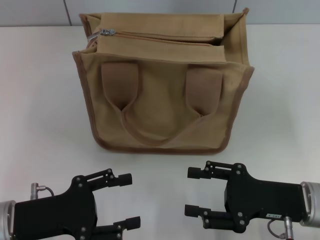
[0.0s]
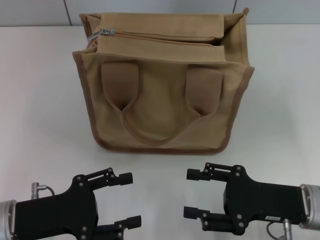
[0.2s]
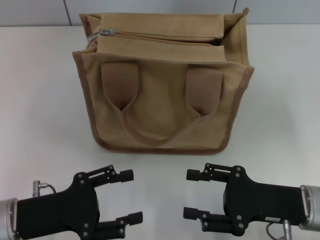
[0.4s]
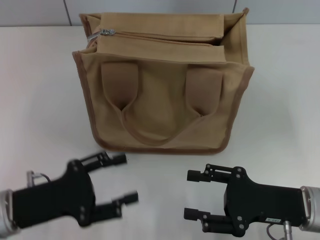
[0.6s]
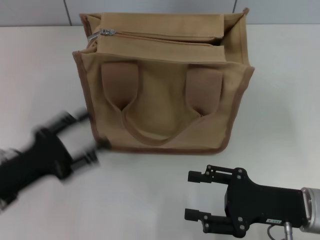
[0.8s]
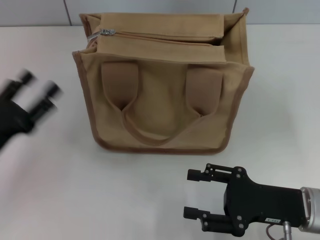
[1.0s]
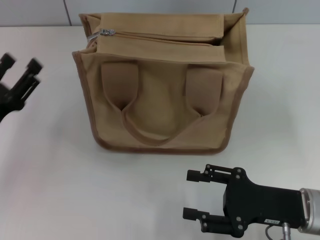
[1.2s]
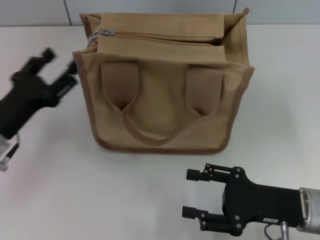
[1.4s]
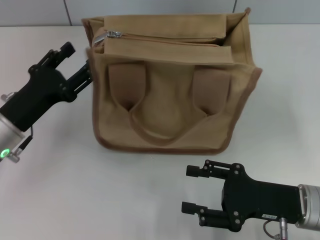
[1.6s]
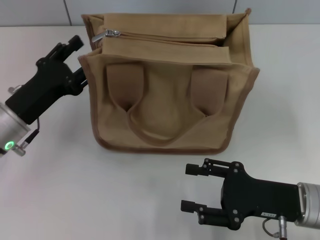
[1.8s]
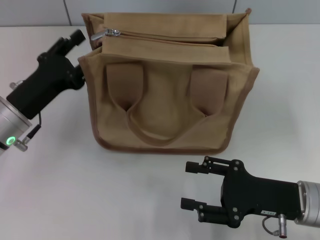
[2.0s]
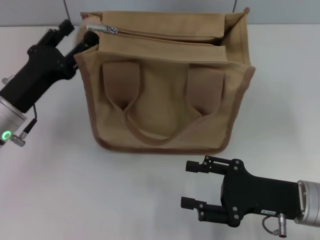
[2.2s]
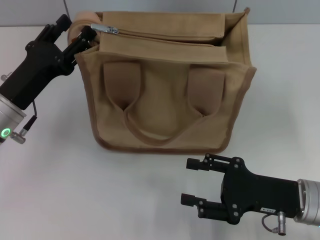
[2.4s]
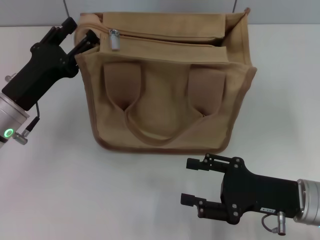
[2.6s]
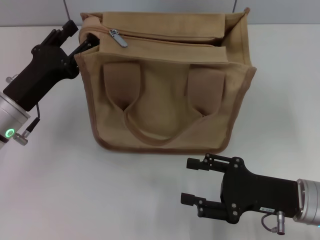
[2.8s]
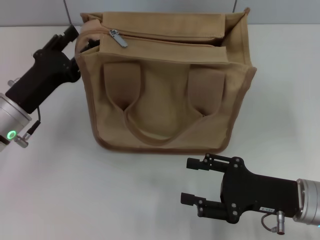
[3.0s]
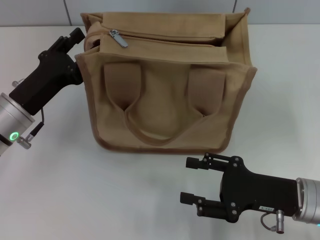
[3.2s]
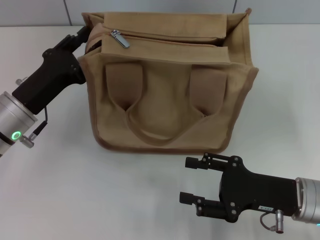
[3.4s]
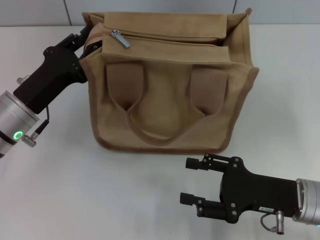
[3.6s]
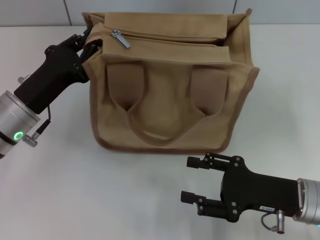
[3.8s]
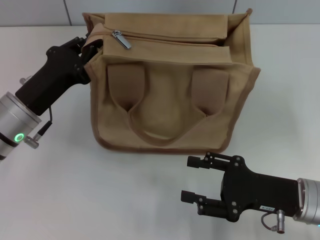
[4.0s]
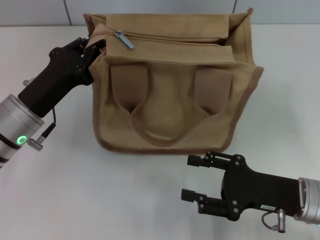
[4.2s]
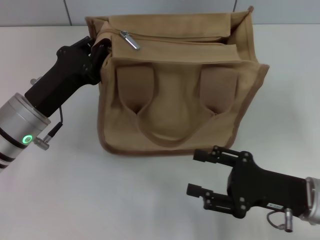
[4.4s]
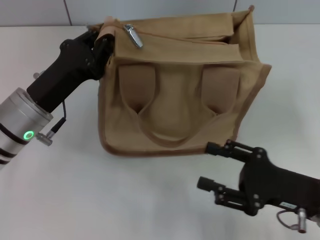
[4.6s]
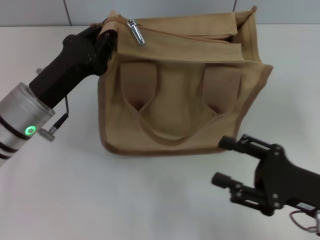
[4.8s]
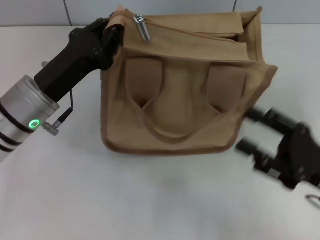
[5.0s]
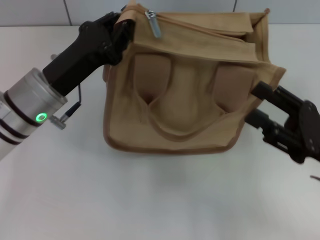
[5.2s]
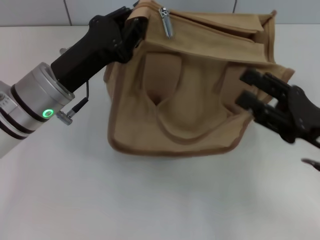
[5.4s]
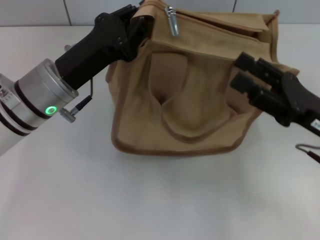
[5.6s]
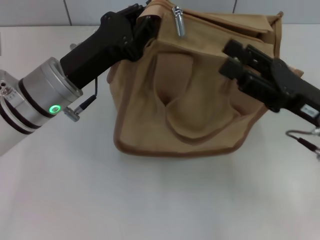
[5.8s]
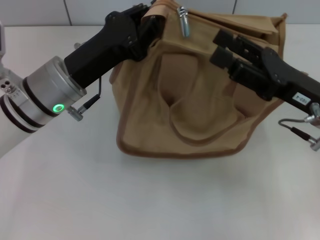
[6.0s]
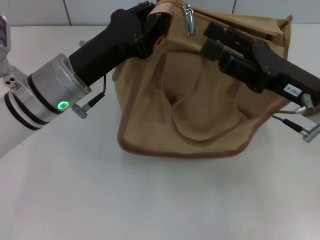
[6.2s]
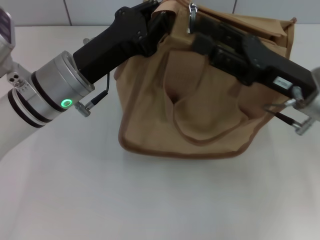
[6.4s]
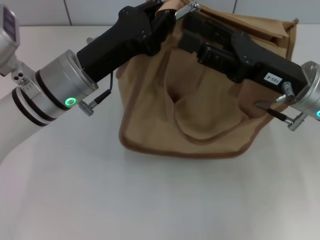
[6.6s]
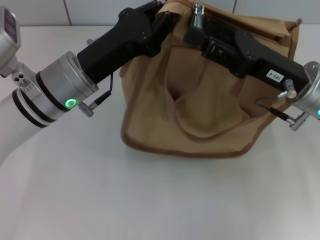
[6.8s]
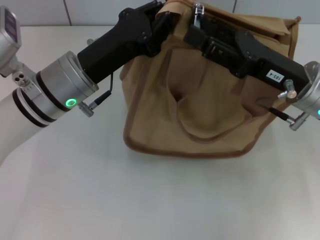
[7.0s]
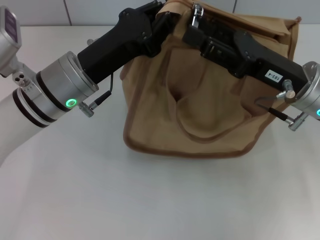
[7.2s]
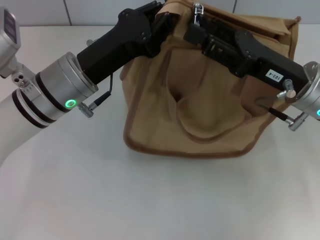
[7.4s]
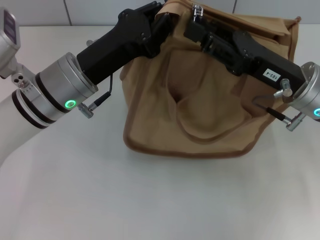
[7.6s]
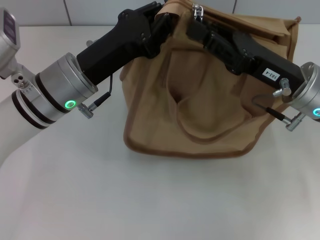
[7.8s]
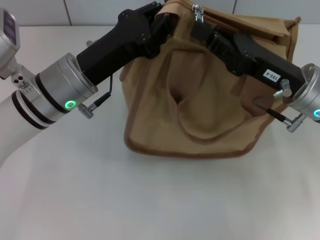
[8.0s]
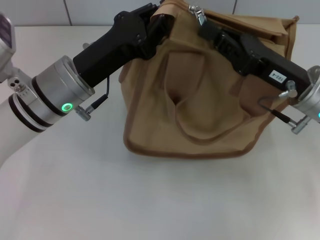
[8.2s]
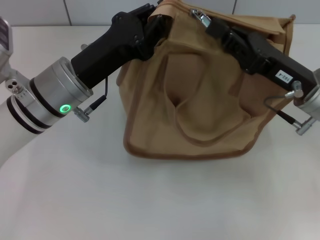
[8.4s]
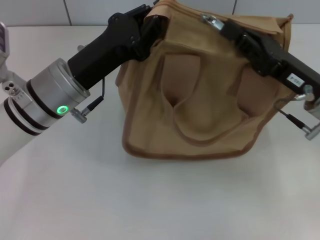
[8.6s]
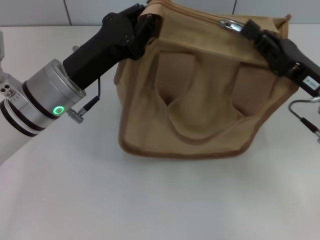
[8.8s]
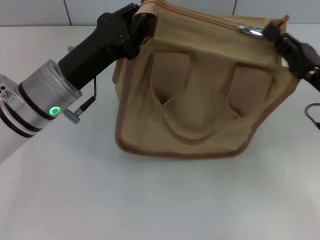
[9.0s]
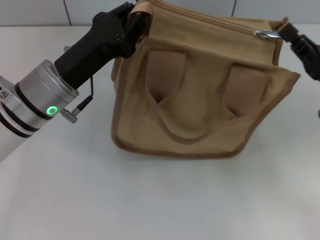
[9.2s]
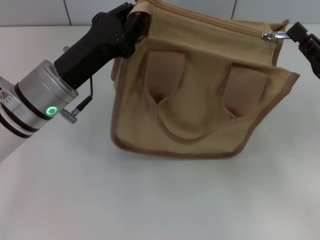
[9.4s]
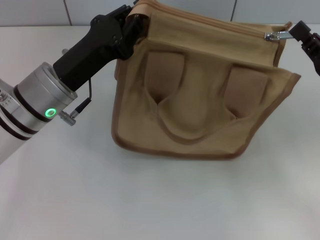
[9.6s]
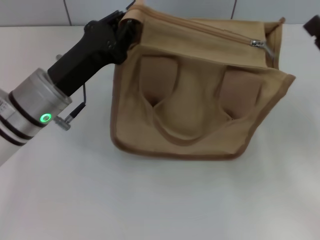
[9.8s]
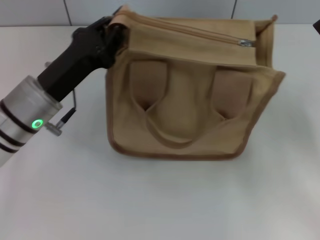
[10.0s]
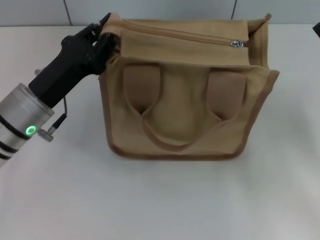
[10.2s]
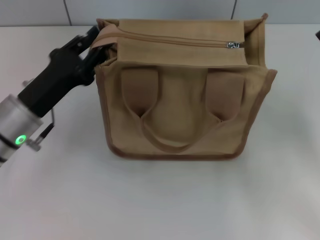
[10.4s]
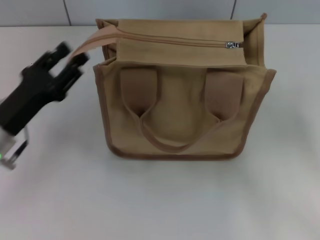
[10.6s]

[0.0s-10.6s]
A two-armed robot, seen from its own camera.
Step, 0.0s to 9.6s: Pull up the zipper with your right hand.
Step, 9.8s to 10.6s: Grab the zipper with your left hand.
0.0s to 1.6s: The left gripper moves forward, roughly 10 cm.
1.6s to 3.0s: The grippers stay close to where they were, moving slightly.
3.0s to 4.6s: The left gripper closes its fingers.
4.6s to 6.0s: The left gripper ends up about 5 cm from where it was; the right gripper shifts approximately 10 cm forward and upward.
7.6s to 9.0s: The right gripper goes approximately 5 cm to the right, and closes its fingers.
9.0s to 10.6s: The left gripper moves to the left and downward, roughly 10 cm, and opens up. Meanwhile the right gripper shifts some 5 cm backward, and opens.

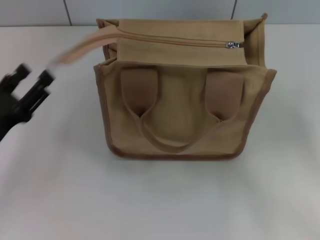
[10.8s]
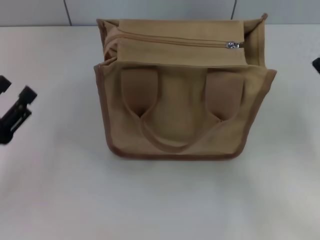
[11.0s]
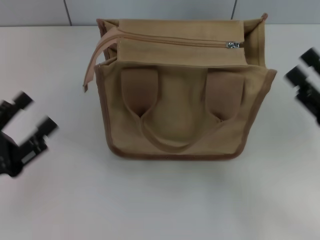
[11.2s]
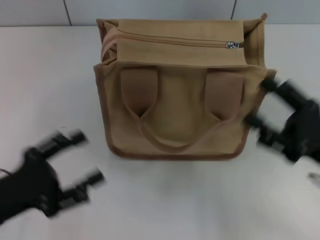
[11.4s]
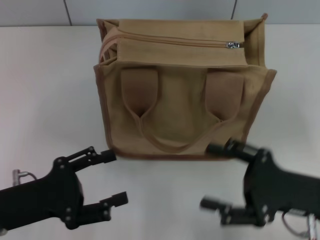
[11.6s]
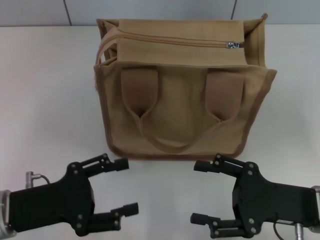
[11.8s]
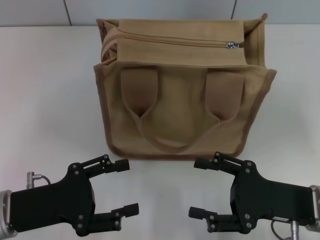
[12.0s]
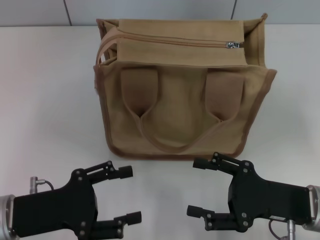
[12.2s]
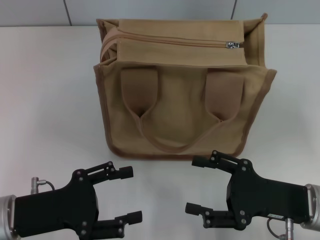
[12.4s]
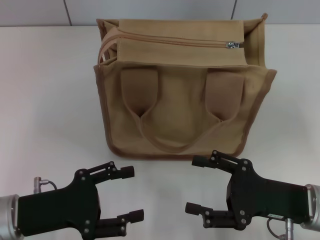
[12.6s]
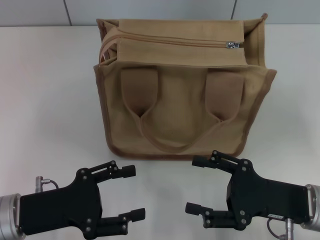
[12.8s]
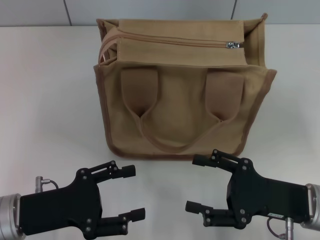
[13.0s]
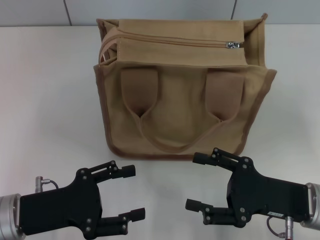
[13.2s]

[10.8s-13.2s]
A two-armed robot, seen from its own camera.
10.8s to 12.0s: The right gripper is displaced to the left by roughly 10 cm, and opens its fingers. The left gripper ends up about 5 cm from where it was.
12.0s to 13.2s: The two grippers keep their place.

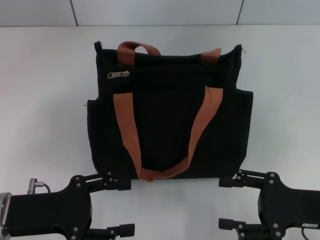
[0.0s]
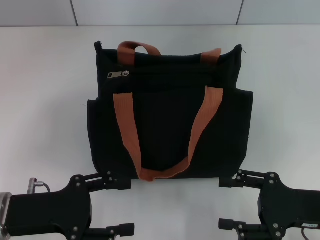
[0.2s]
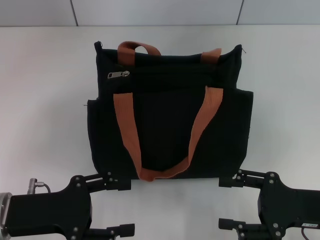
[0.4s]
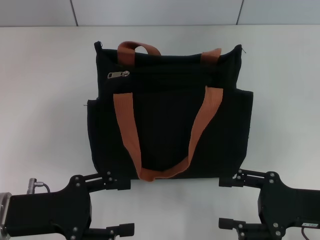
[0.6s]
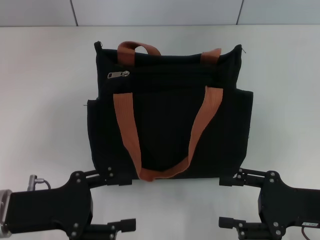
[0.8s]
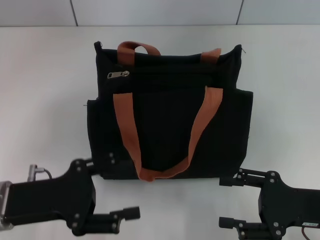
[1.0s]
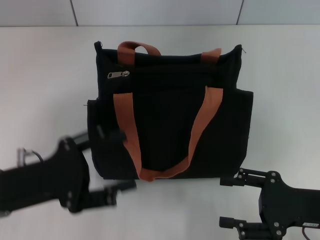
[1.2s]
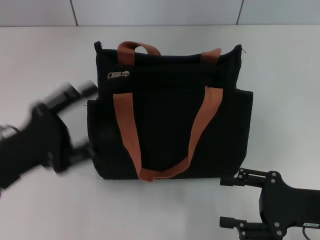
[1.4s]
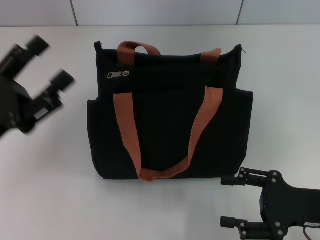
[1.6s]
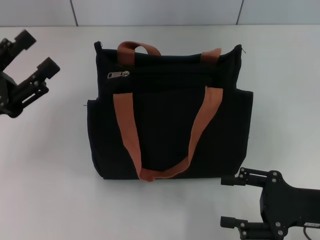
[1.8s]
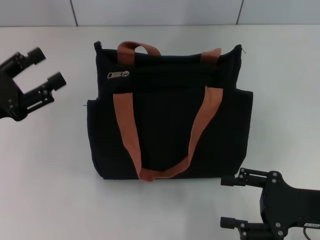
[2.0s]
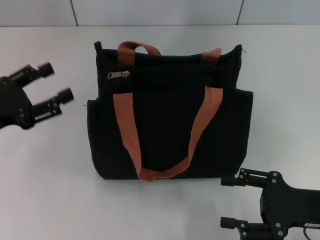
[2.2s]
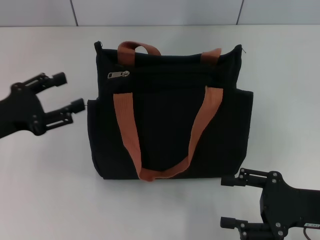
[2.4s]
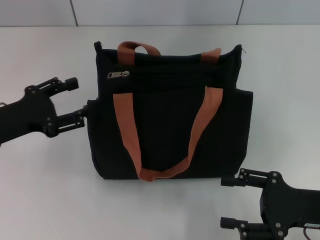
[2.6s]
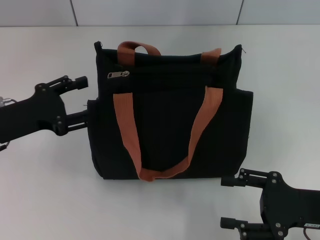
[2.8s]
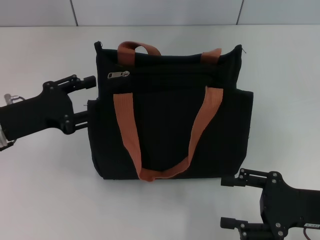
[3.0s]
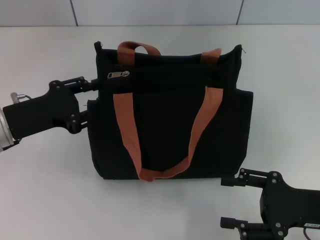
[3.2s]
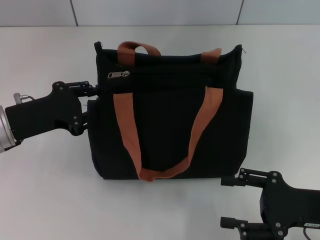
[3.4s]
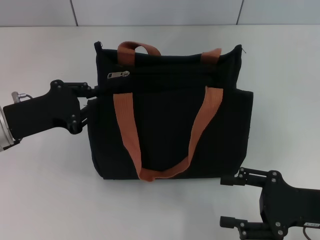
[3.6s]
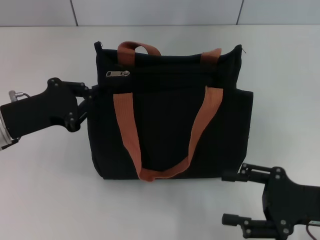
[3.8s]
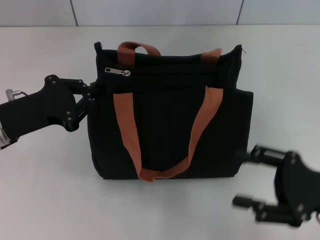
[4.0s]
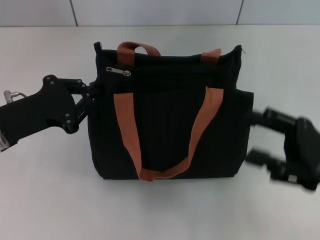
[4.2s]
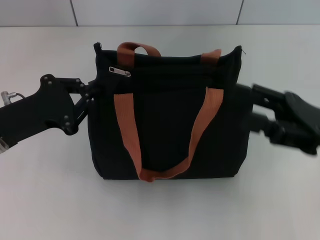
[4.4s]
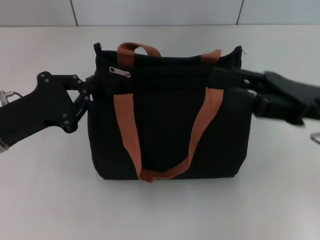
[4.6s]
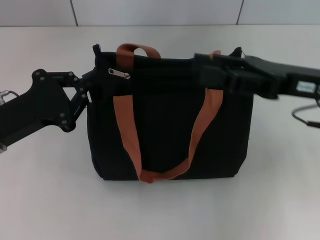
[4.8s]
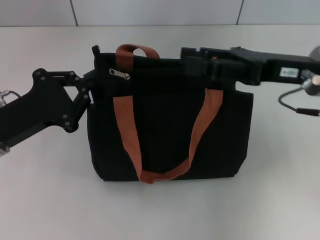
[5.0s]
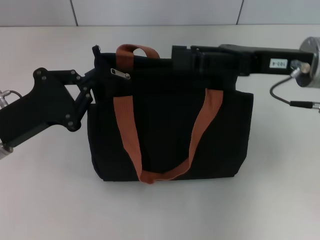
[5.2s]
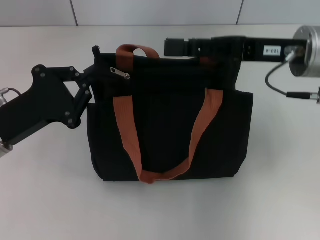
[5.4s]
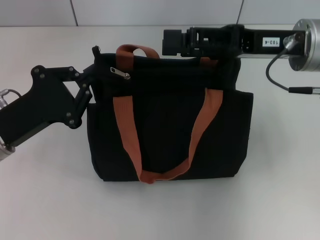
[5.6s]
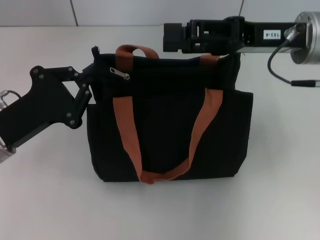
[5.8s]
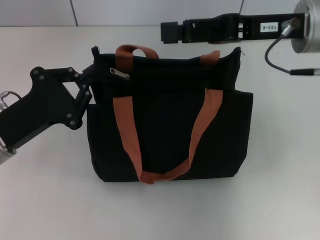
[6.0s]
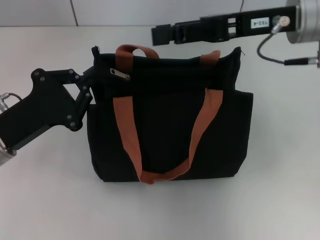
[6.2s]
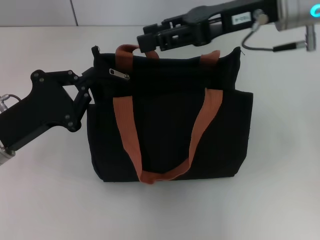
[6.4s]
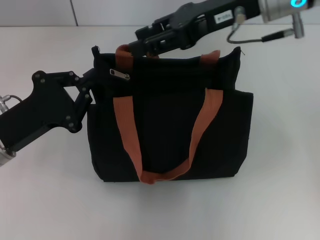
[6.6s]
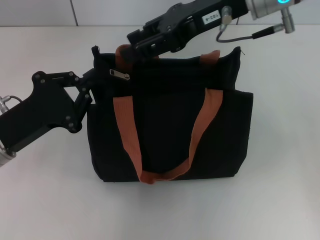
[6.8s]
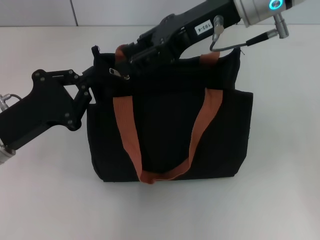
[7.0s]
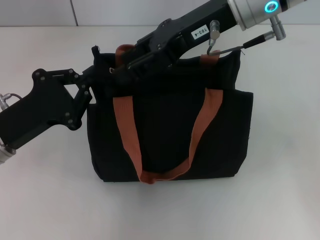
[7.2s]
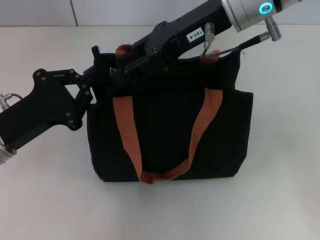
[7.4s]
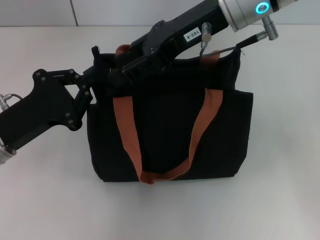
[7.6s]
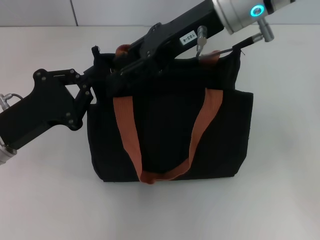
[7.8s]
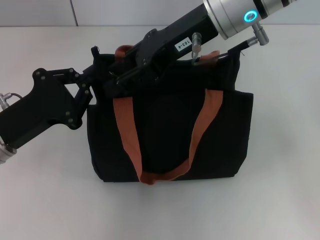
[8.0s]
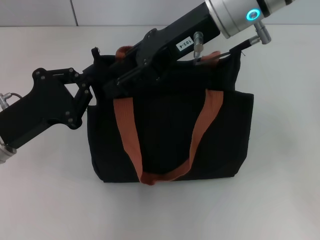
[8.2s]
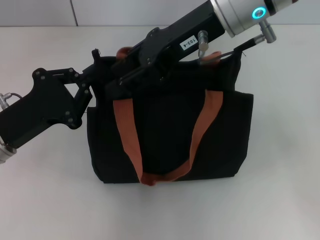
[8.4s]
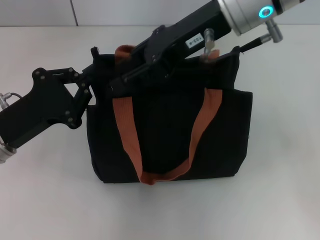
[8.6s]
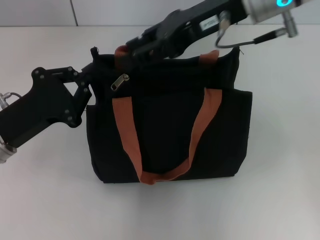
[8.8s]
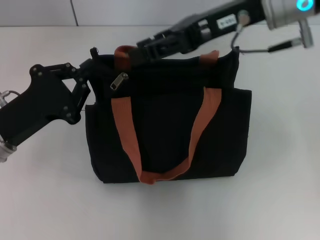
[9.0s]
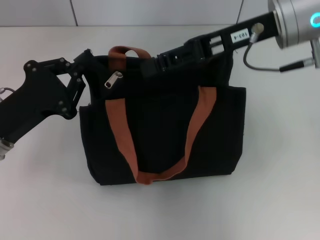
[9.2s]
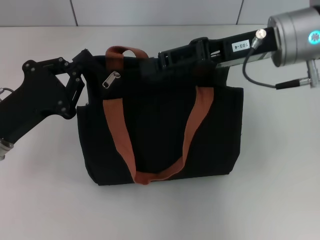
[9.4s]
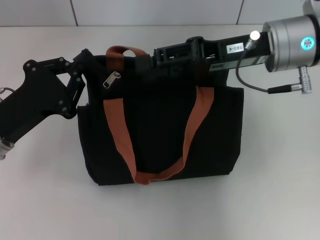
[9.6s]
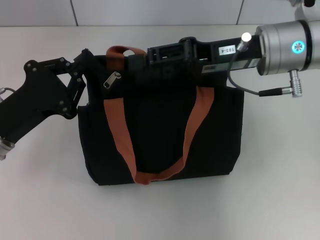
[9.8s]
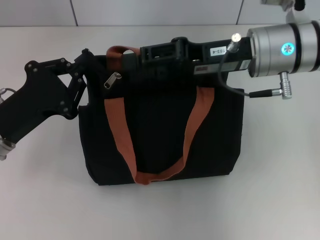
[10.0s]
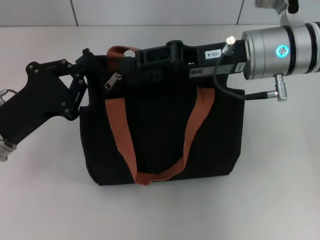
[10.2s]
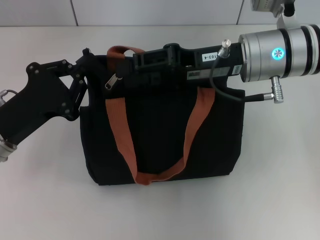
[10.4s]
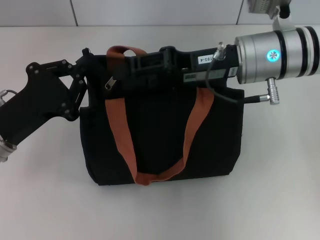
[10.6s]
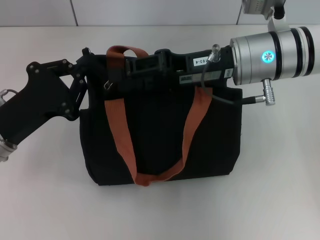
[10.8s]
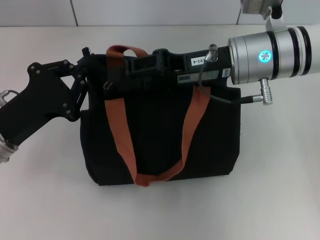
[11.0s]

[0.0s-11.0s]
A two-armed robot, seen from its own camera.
1.6s to 3.2s: The left gripper travels forward by about 5 cm.
3.2s to 4.8s: The right gripper moves forward and upward, roughly 15 cm. Meanwhile the left gripper closes.
4.8s to 6.2s: The right gripper moves upward and forward, some 10 cm.
6.2s to 7.8s: The right gripper moves to the left, roughly 10 cm.
7.8s to 9.4s: The right gripper moves to the right, some 5 cm.
9.4s to 11.0s: The right gripper ends up some 5 cm from where it was.
